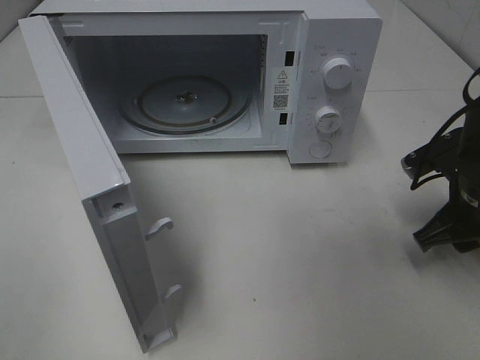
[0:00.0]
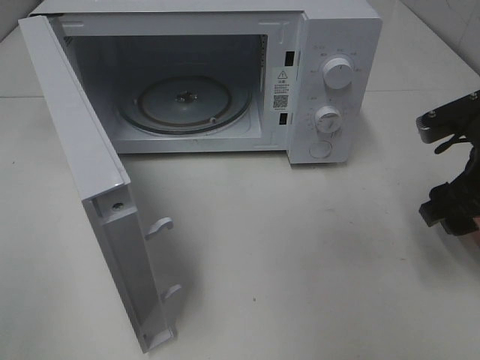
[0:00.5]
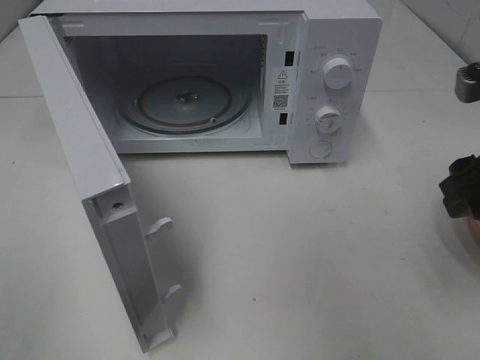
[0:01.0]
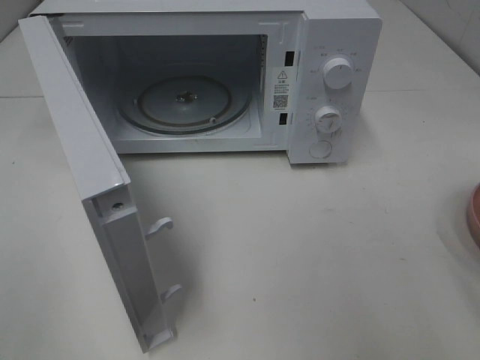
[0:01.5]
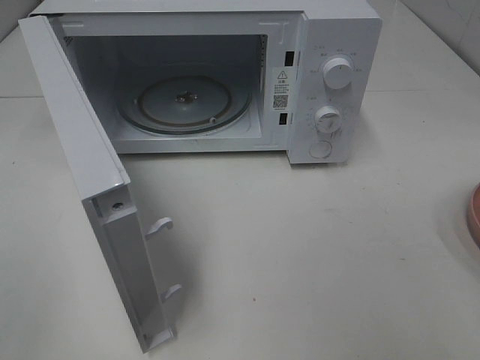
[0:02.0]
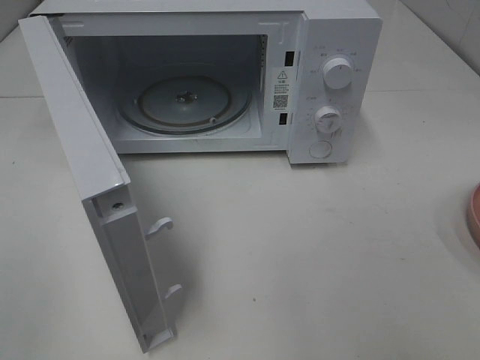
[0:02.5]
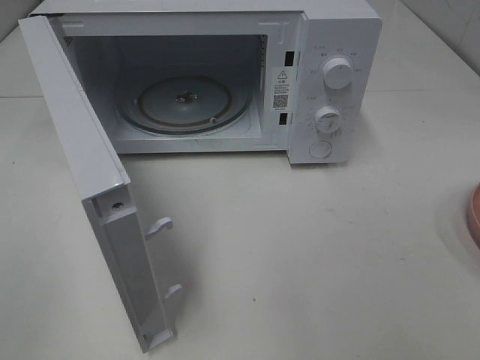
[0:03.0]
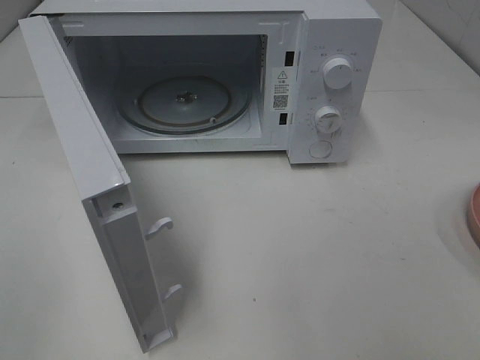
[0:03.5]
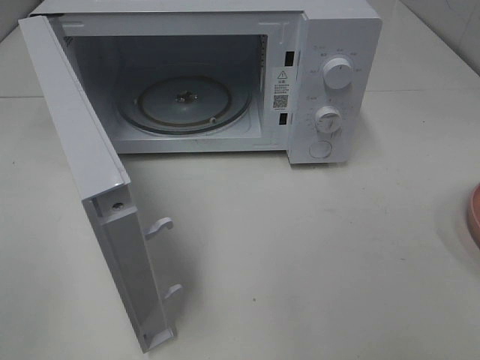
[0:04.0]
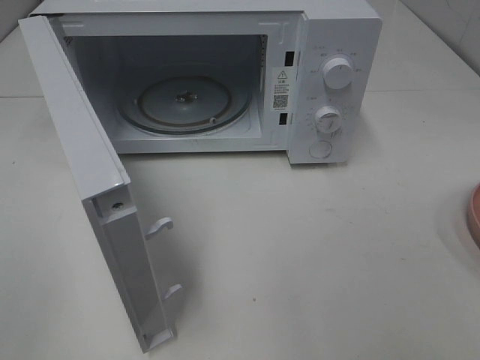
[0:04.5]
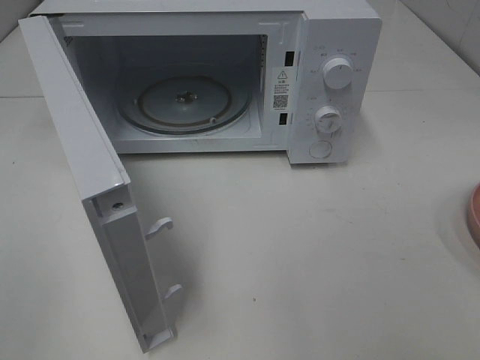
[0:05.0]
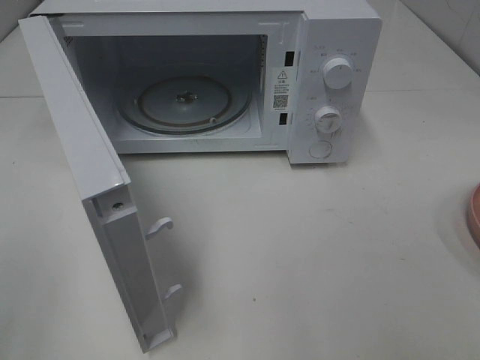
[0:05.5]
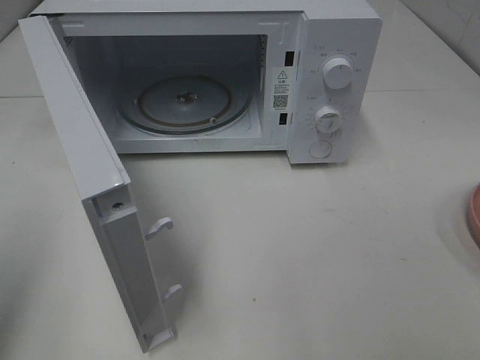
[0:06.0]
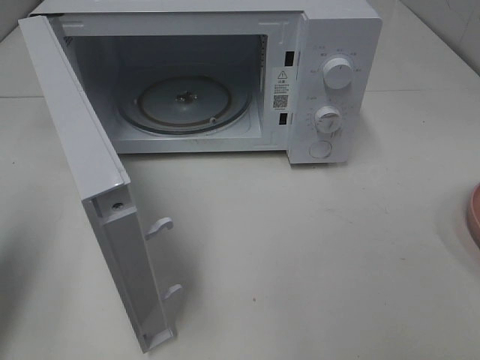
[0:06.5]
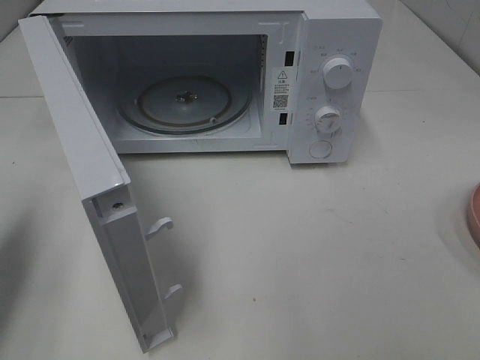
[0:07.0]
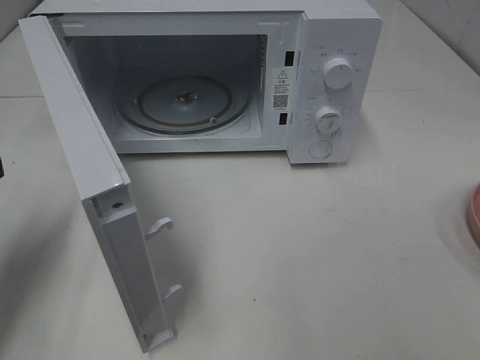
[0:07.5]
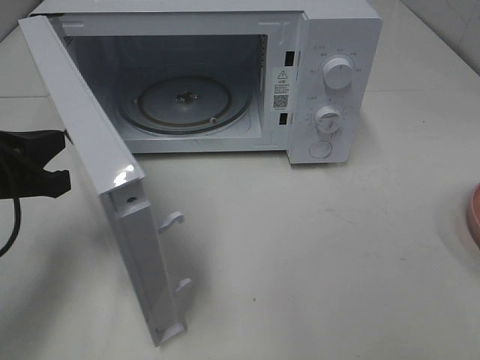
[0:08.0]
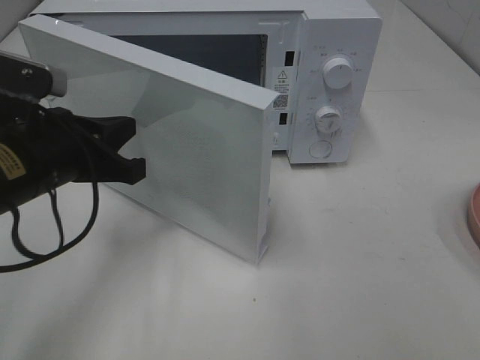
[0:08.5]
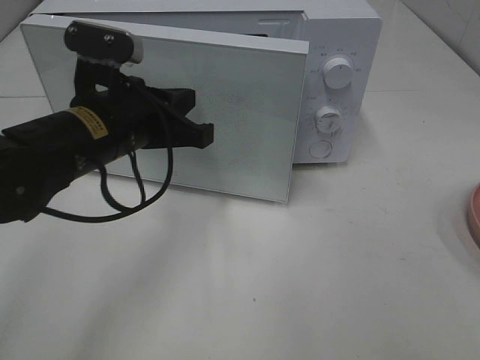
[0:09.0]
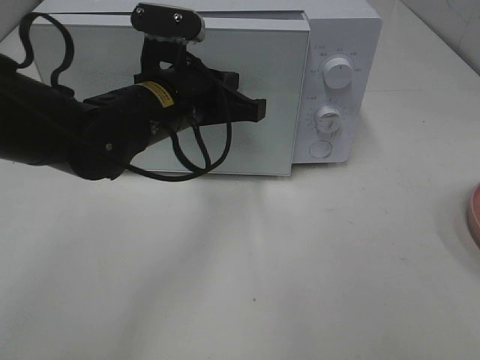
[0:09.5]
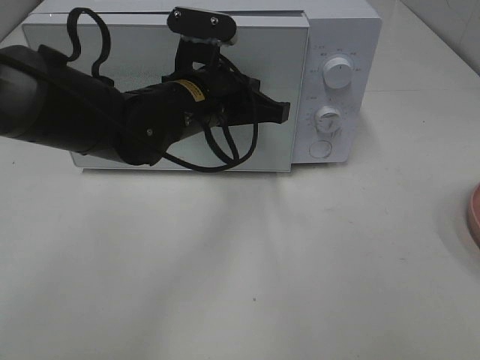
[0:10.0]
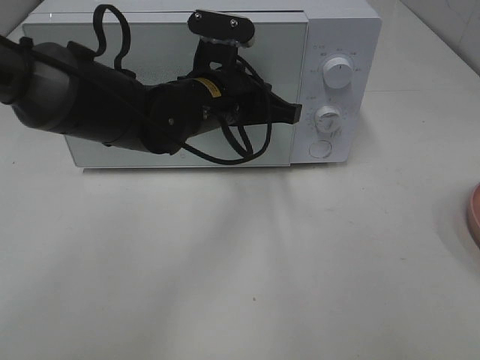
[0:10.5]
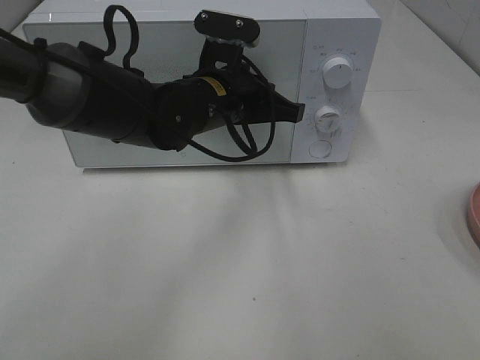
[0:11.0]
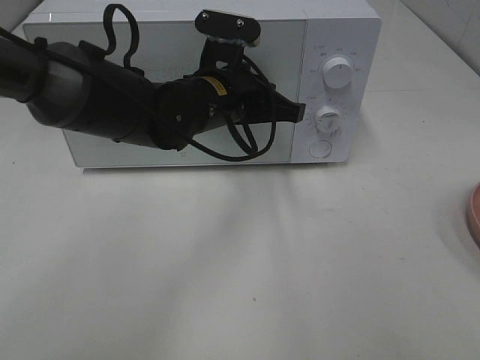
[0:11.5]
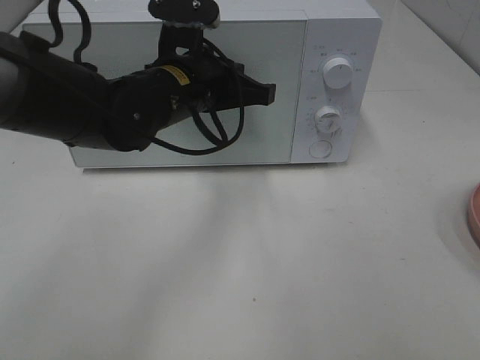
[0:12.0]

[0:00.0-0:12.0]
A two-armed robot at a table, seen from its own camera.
Task of the whole recording: Heat Sandwich.
0:00.0 to 0:02.0: The right gripper goes about 25 cm backward and upward.
0:04.0 to 0:06.0: The left gripper moves forward, about 10 cm, and closes its fingers.
0:06.0 to 0:08.0: The left gripper moves forward, downward and to the right, roughly 20 cm.
0:08.0 to 0:10.0: The left gripper moves to the right and forward, roughly 25 cm.
0:10.0 to 0:12.0: There are only small adjustments of the grippers.

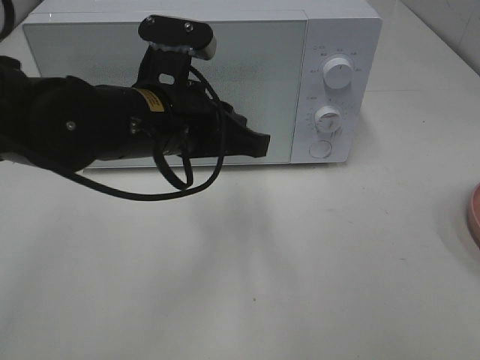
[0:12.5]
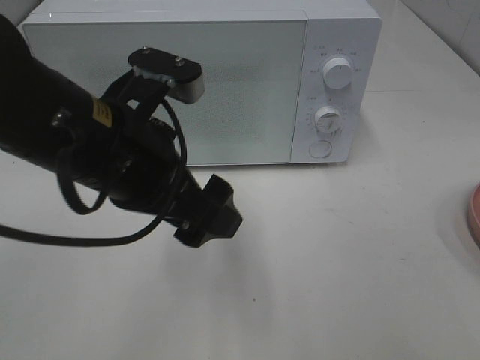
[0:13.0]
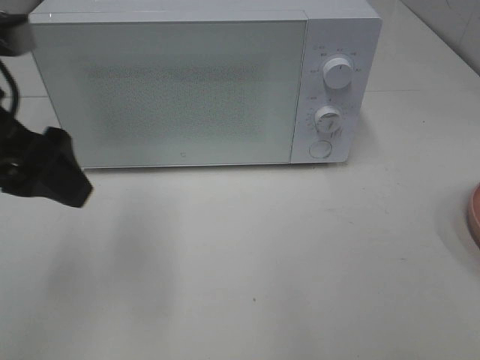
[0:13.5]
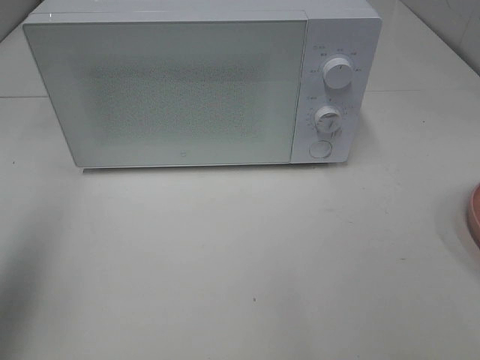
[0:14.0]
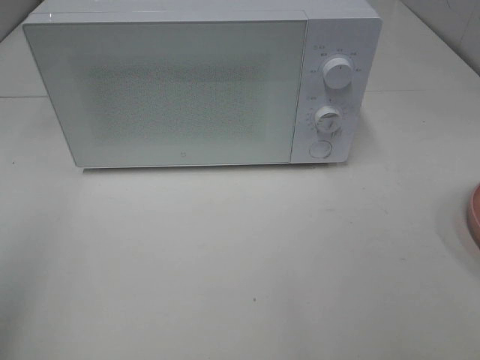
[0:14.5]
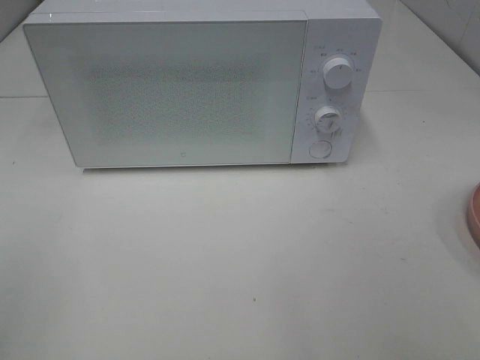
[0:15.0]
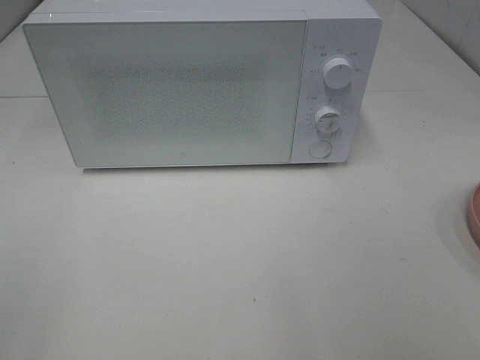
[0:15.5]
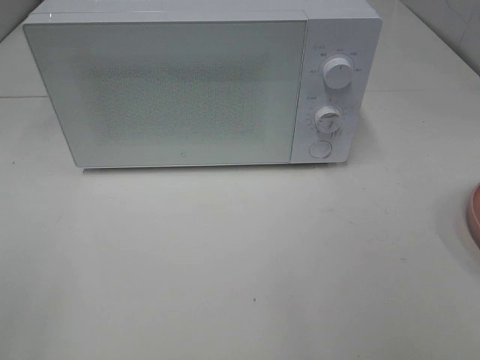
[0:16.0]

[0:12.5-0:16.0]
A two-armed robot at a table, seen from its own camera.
Task of the whole recording: Heat Sandwich.
0:12.5 to 0:14.5: The left gripper goes about 35 cm to the left, backward and upward, and opens up.
